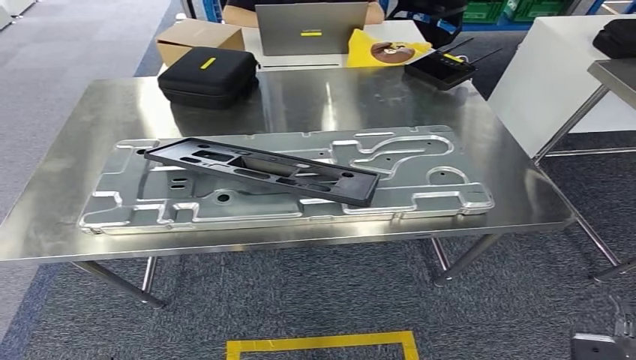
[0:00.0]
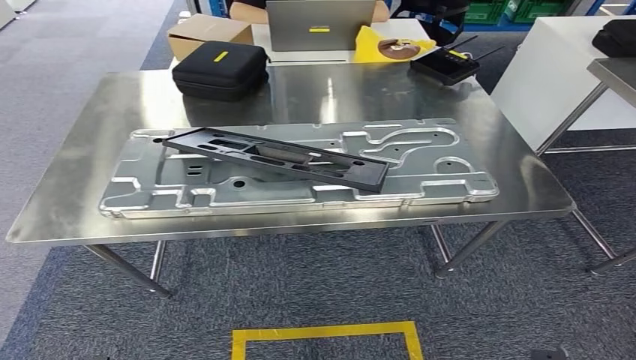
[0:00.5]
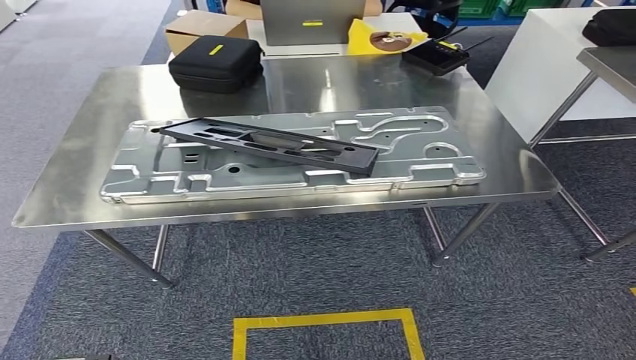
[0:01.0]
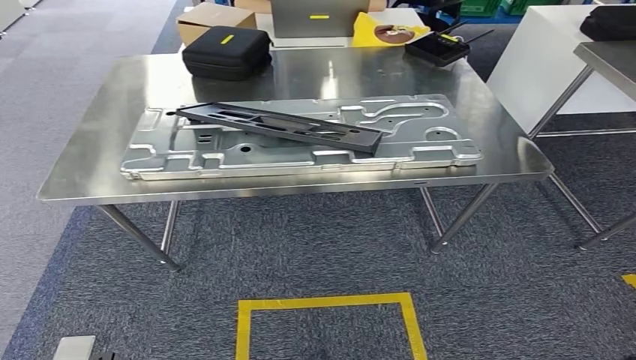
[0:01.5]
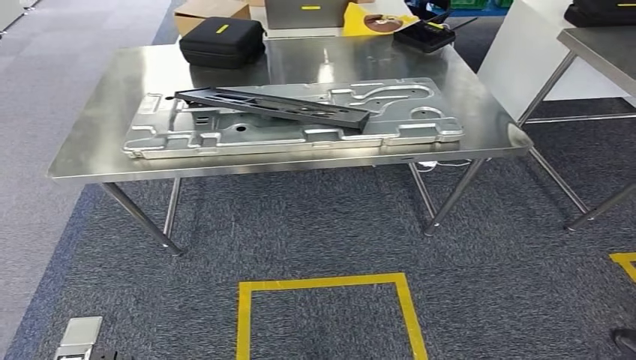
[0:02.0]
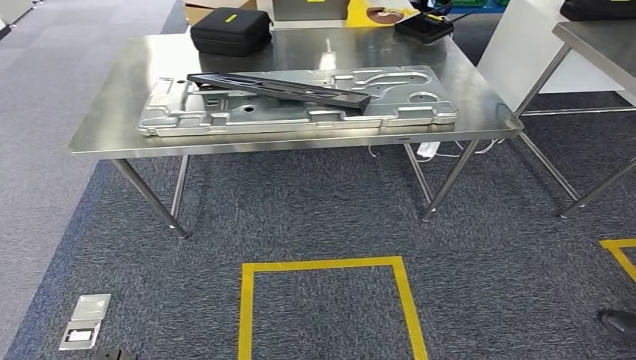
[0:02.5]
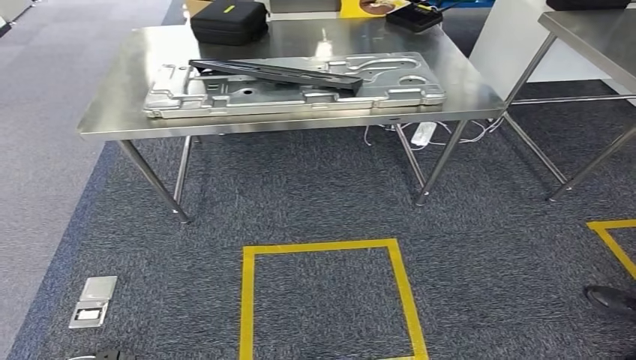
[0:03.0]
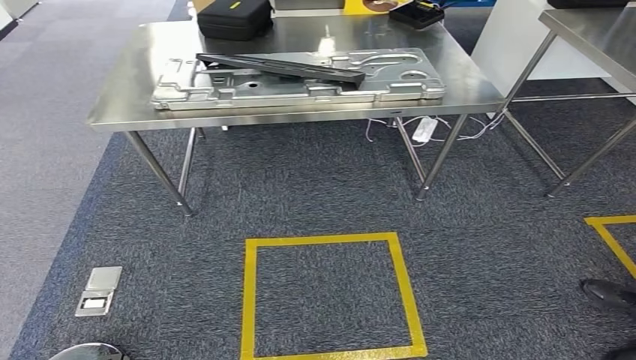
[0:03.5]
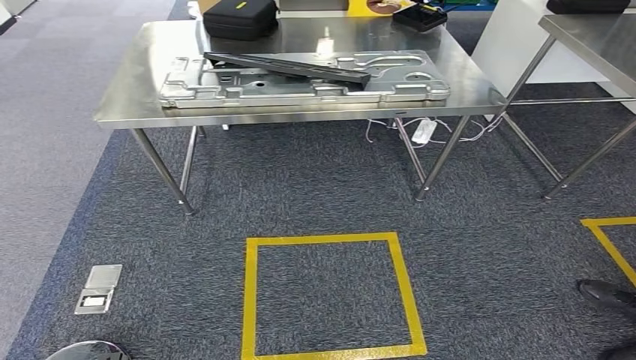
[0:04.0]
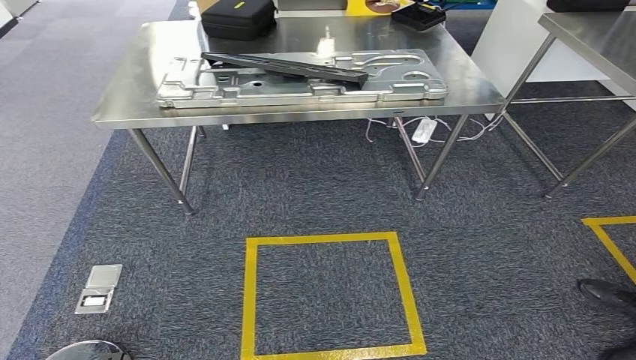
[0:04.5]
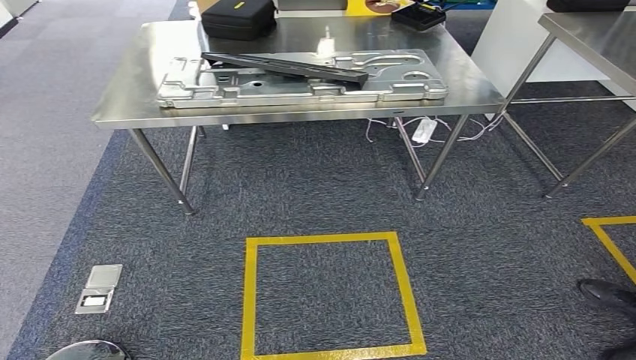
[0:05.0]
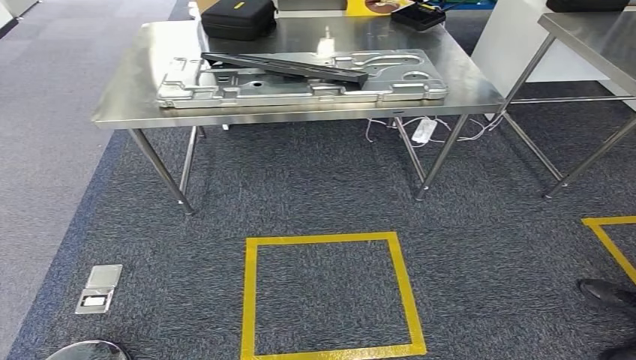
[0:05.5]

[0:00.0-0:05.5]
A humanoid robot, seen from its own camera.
Step, 0:00.0 to 0:05.0: Move to the initial position of the shelf.
0:03.5 to 0:05.5: The hands move only a little.
